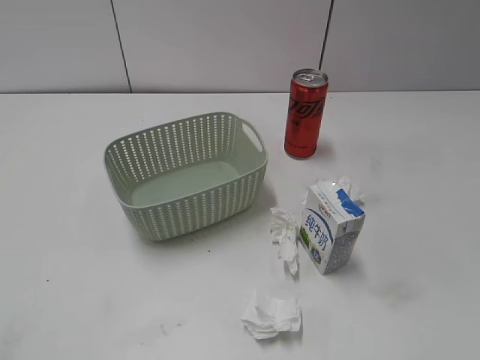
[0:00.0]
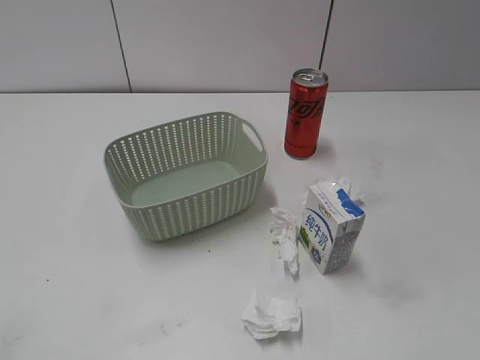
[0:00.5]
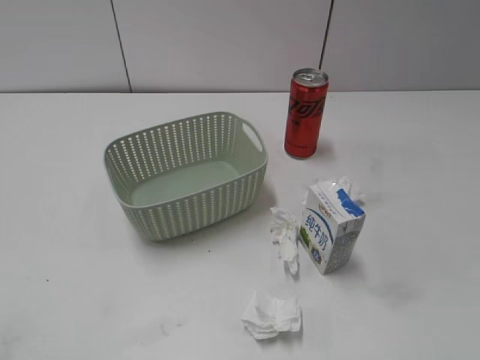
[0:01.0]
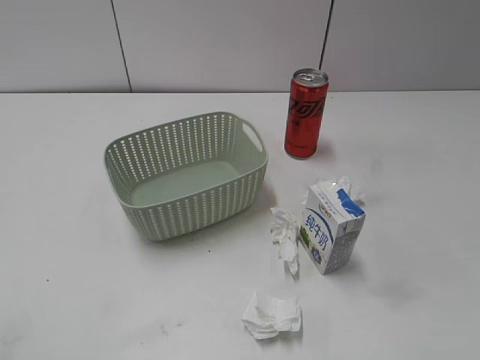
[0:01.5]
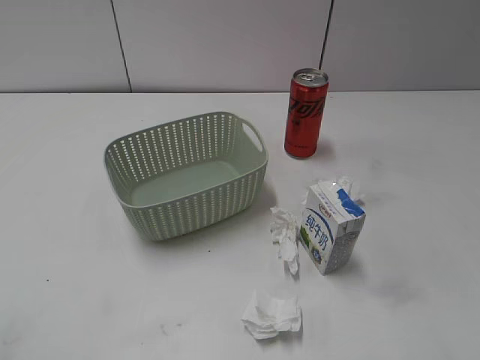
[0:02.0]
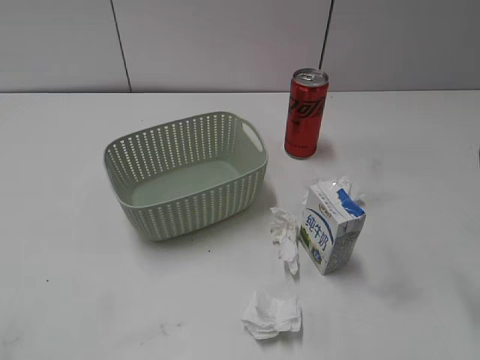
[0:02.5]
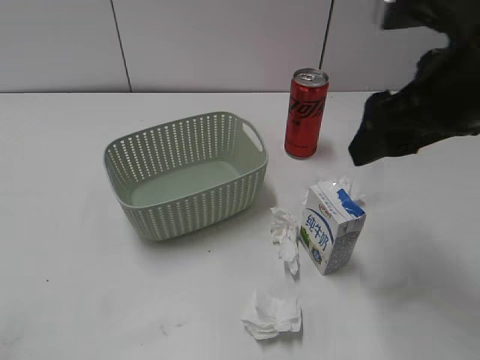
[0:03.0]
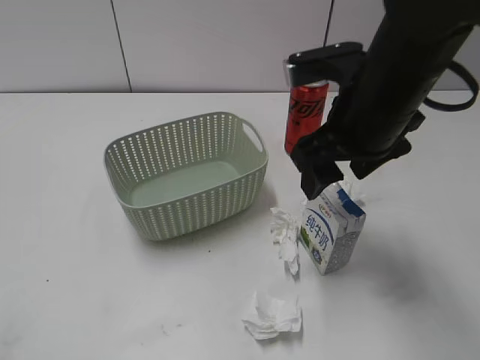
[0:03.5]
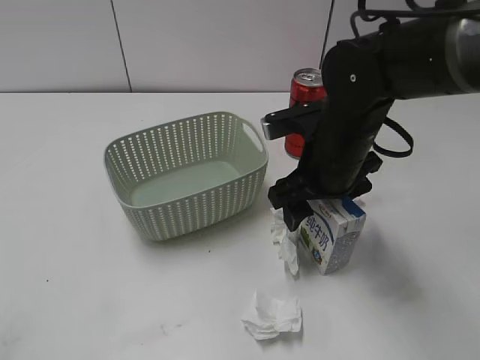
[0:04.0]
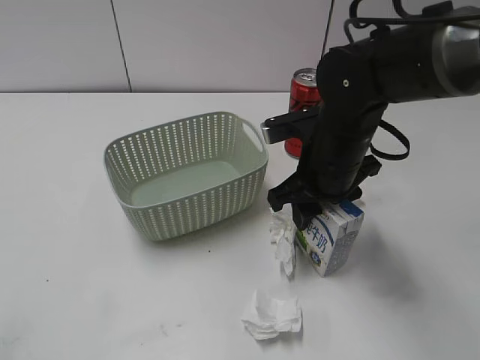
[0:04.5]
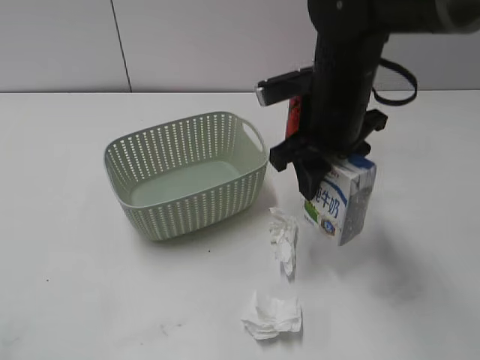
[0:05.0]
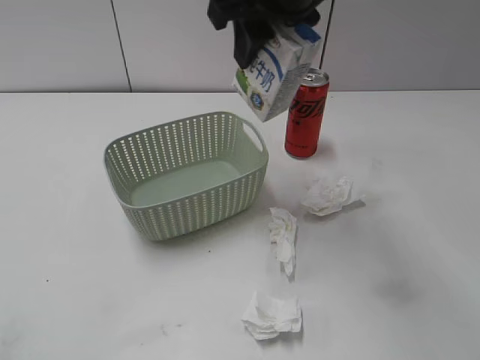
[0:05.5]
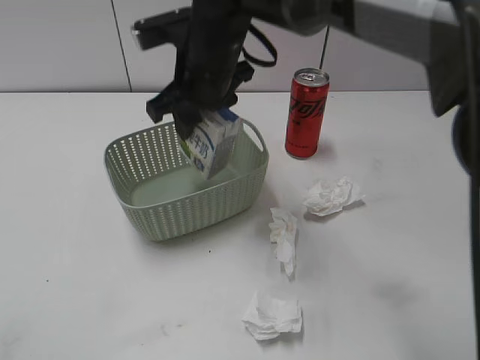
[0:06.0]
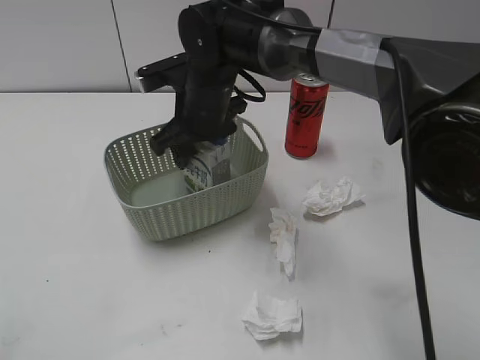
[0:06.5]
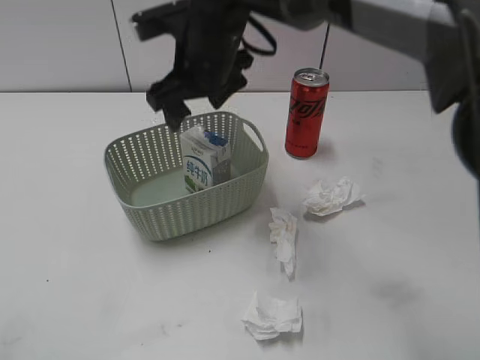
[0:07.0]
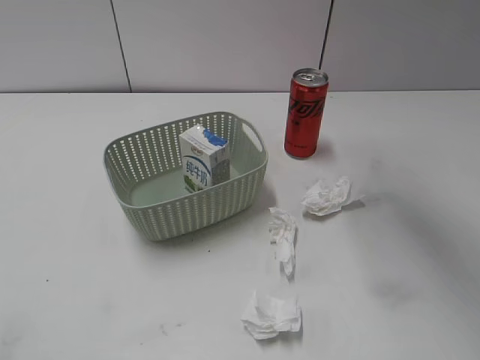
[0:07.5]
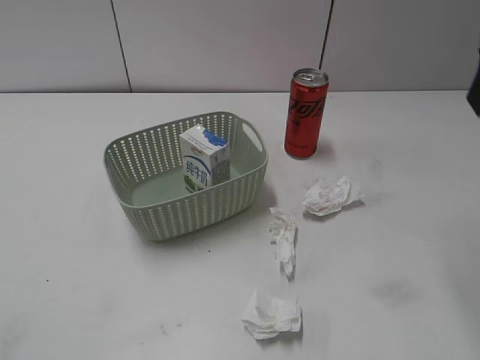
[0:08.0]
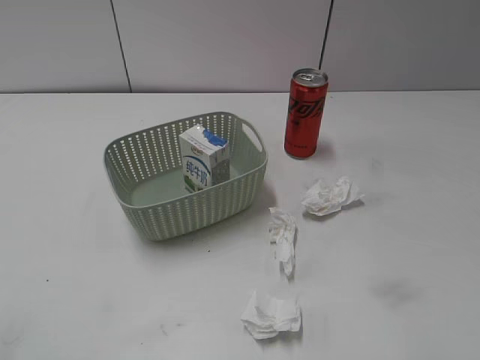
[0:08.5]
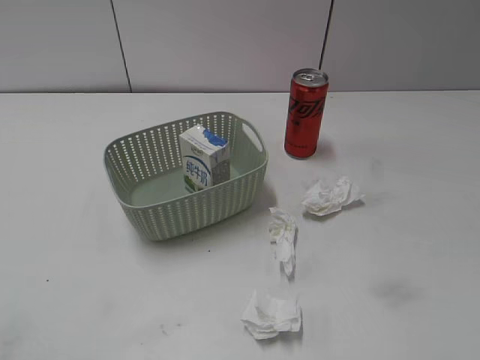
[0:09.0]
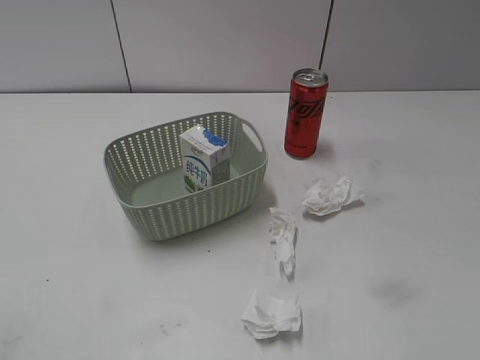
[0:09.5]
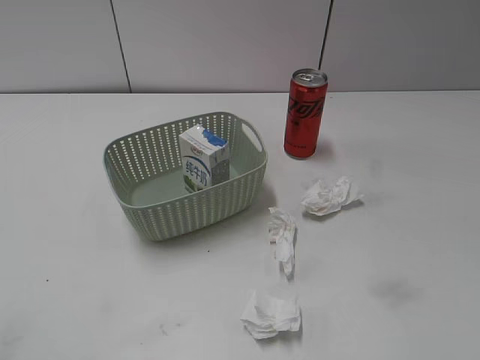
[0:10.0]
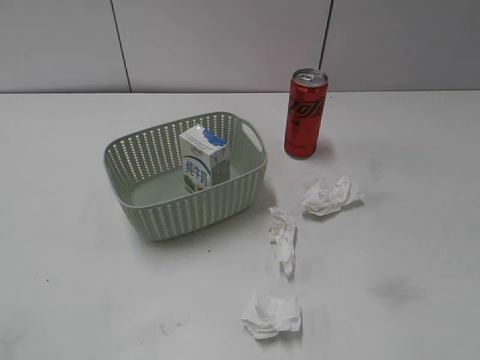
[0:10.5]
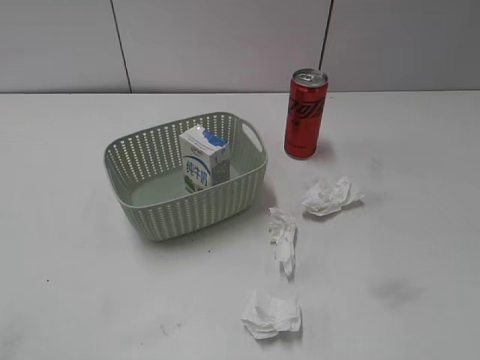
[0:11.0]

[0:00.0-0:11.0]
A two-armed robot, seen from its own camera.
Step, 0:03.0 to 0:04.5: Grasp the milk with right gripper.
Step, 0:05.0 to 0:07.0: Place the milk in the basket with right gripper.
0:02.0 to 0:03.5: The right gripper is displaced forward and to the left by approximately 30 cm.
0:03.5 to 0:05.5: The right gripper shifts about 15 cm upward, to the left and forward, and closes its fingers.
0:05.5 to 0:07.5: The right gripper goes approximately 5 cm to the right, moves some 15 cm downward and comes back, and opens its fingers.
0:07.5 to 0:09.0: The right gripper heads backward, to the right and downward, covering about 40 cm.
